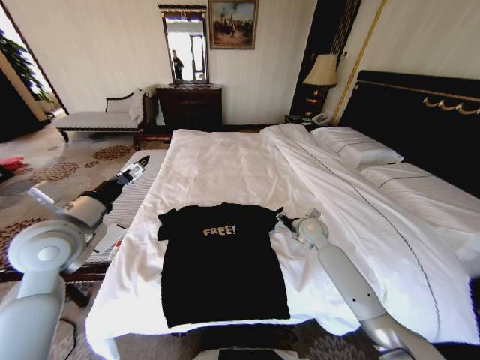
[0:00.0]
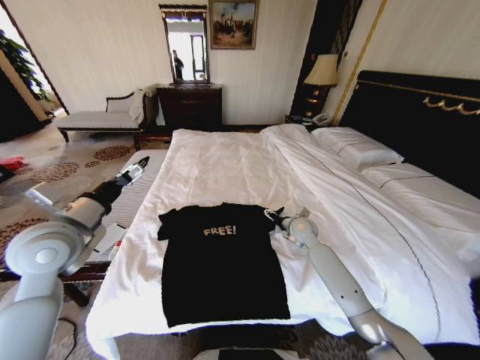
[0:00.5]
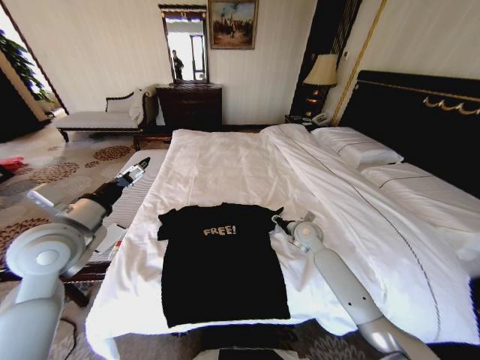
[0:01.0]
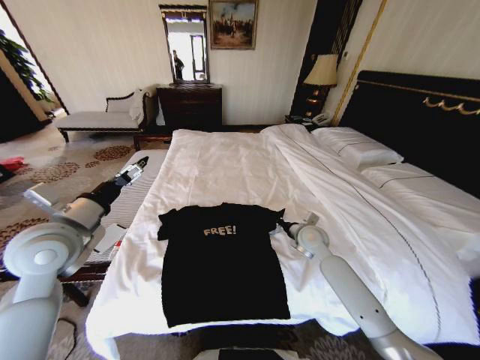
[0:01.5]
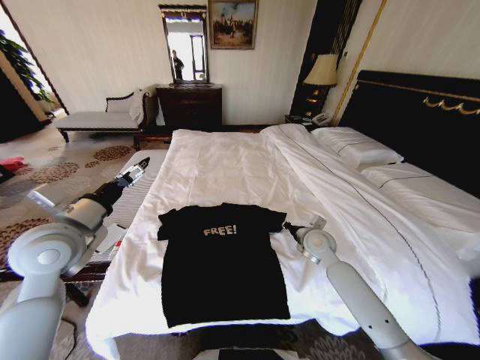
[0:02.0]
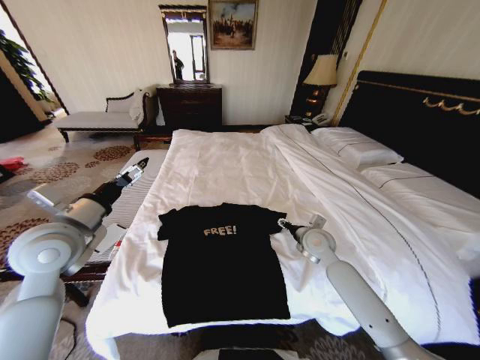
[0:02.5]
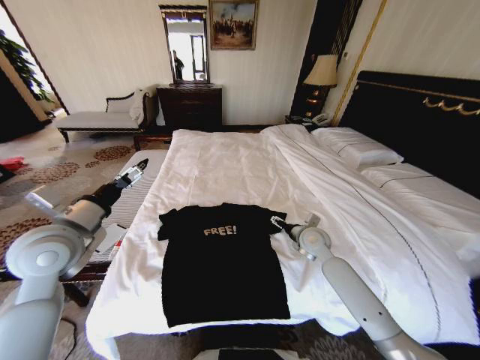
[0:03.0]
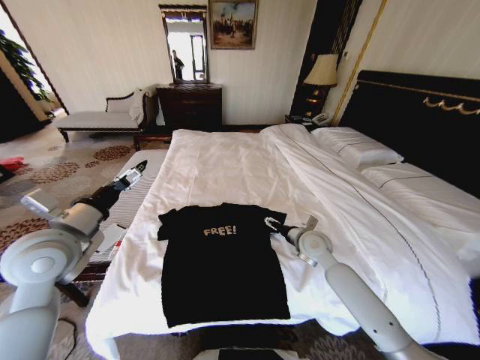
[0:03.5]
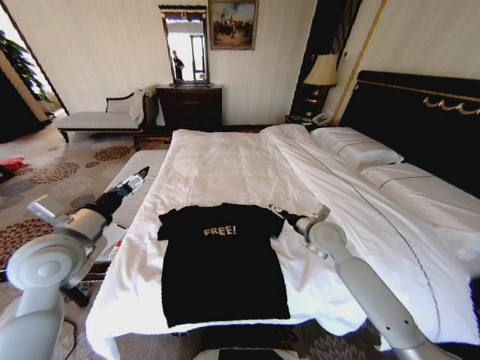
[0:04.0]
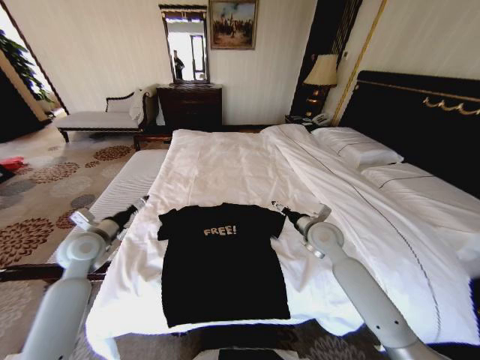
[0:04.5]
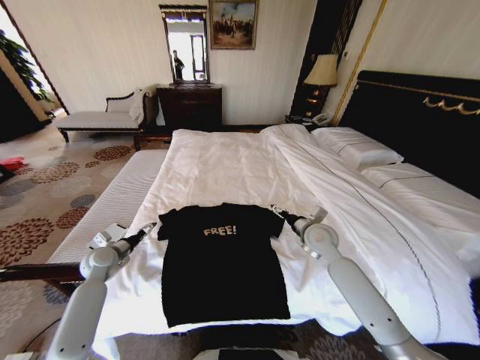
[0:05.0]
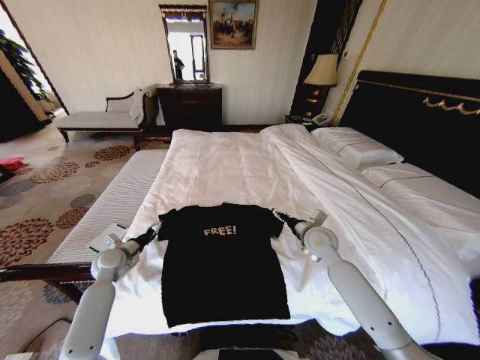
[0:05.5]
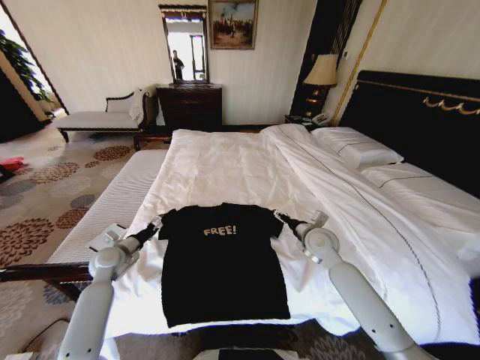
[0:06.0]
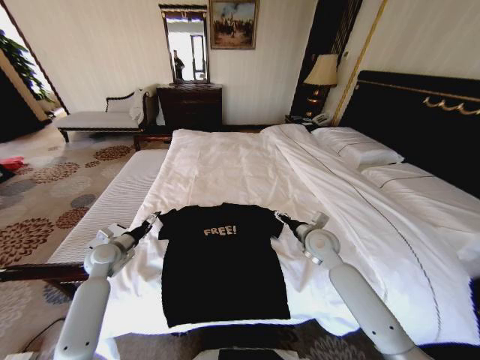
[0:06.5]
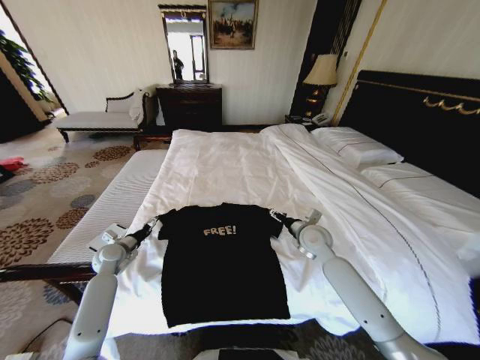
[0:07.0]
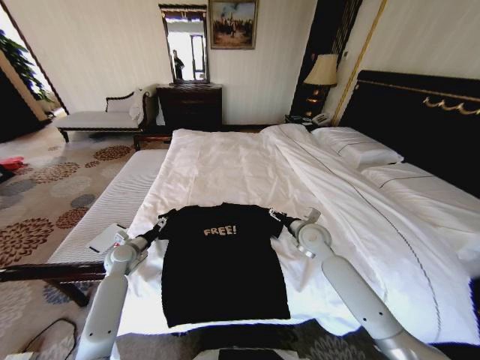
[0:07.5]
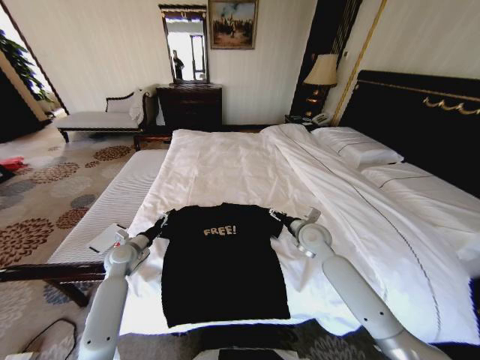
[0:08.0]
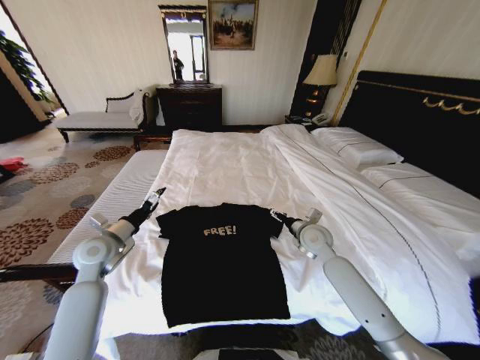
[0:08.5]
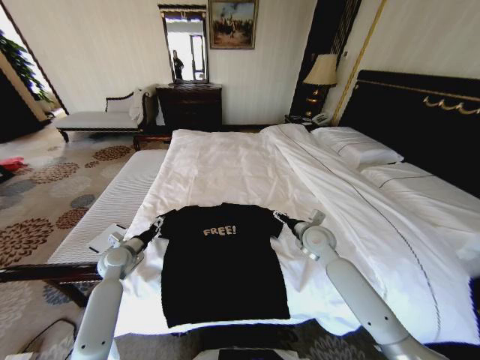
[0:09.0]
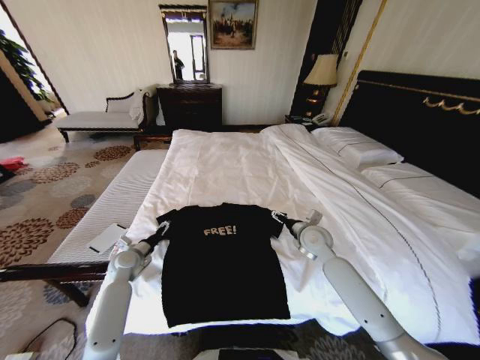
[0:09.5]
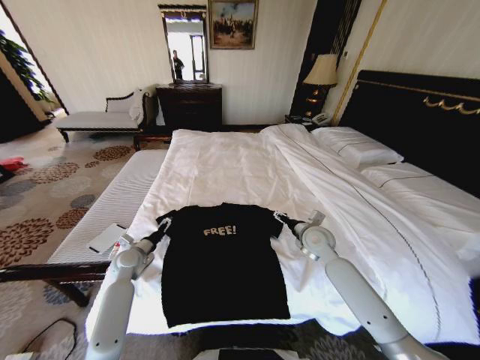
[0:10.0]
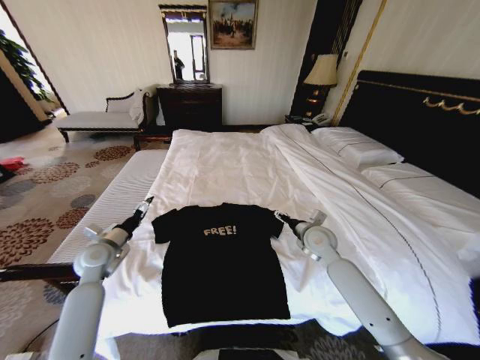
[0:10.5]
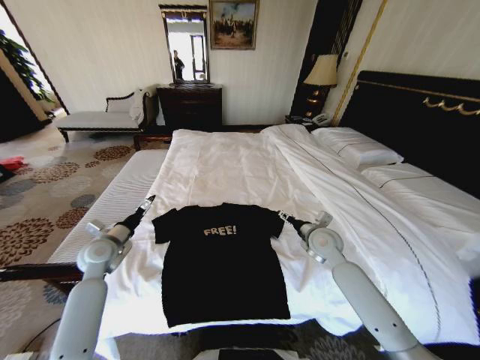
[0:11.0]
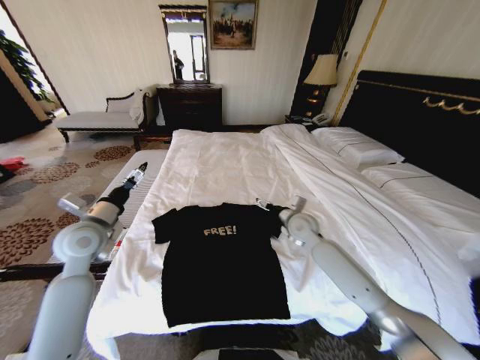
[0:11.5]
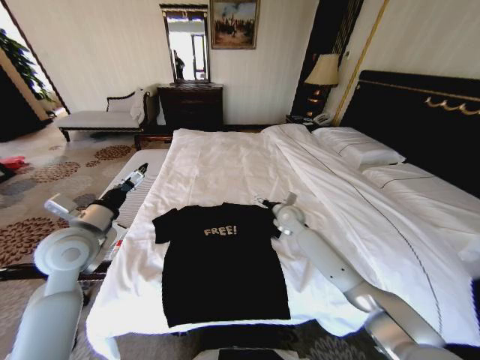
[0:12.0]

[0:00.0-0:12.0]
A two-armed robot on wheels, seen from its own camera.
Task of the whole recording: Fold the clothes on the bed.
0:00.0 to 0:02.0: The right gripper moves backward, about 5 cm, and opens and closes again.
0:02.0 to 0:04.0: The right gripper goes about 5 cm upward, and opens.
0:04.0 to 0:06.0: The left gripper is displaced downward and forward by approximately 25 cm.
0:06.0 to 0:08.0: The grippers make only small movements.
0:08.0 to 0:10.0: The left gripper goes upward and returns, roughly 10 cm each way.
0:10.0 to 0:12.0: The left gripper shifts approximately 25 cm upward. Meanwhile the right gripper is displaced forward and to the left by about 10 cm.

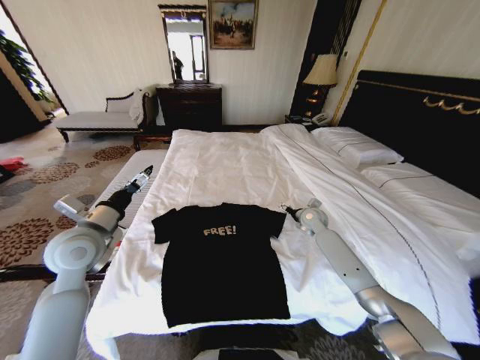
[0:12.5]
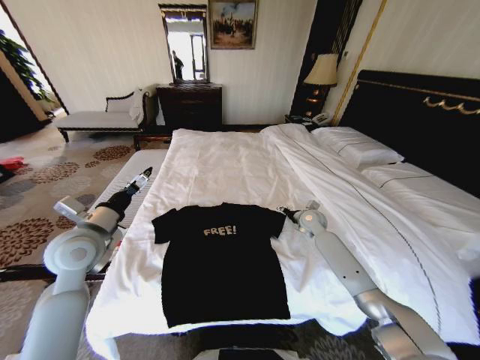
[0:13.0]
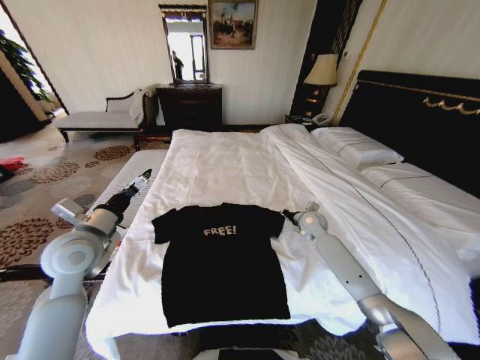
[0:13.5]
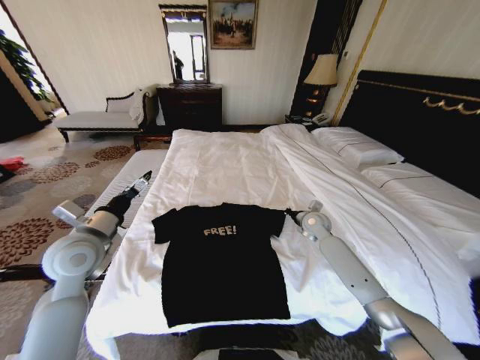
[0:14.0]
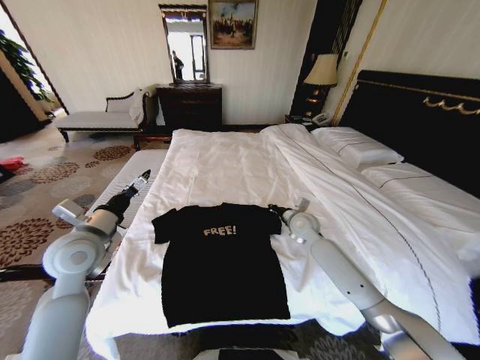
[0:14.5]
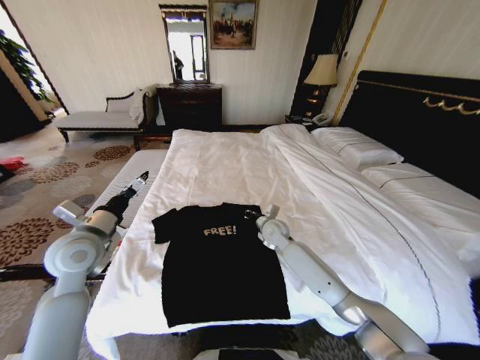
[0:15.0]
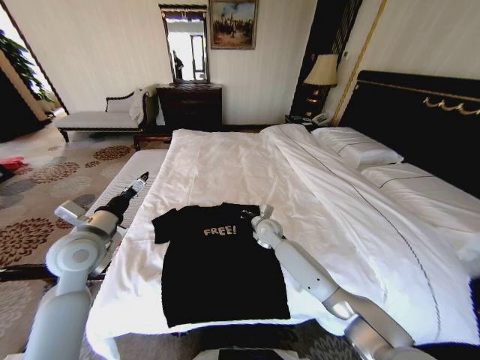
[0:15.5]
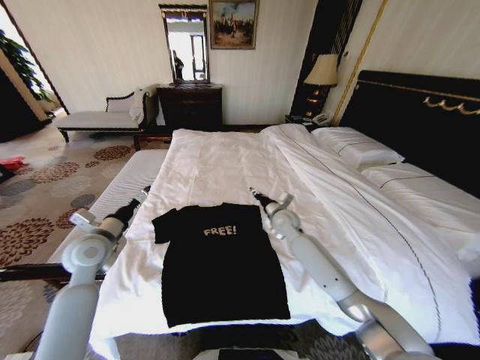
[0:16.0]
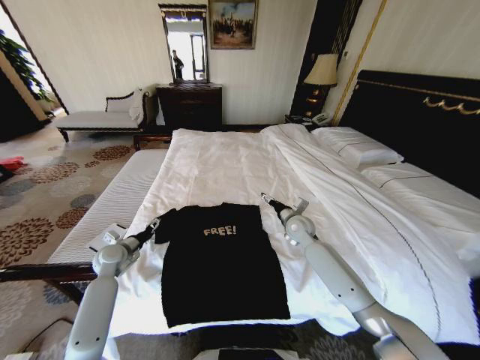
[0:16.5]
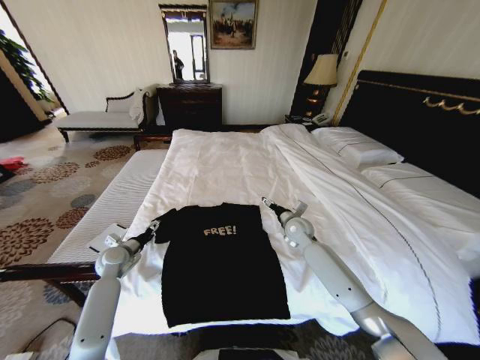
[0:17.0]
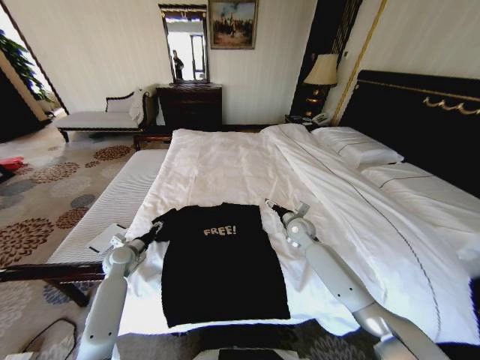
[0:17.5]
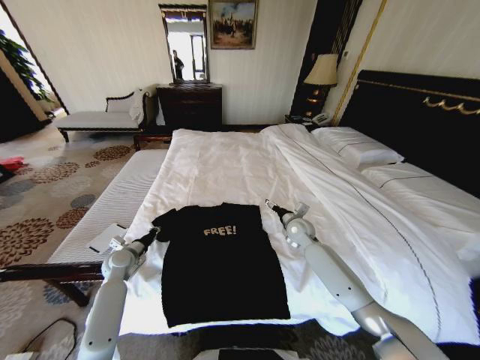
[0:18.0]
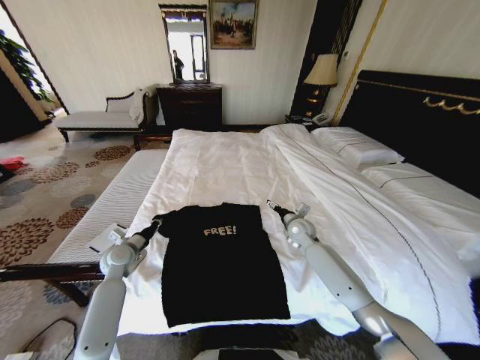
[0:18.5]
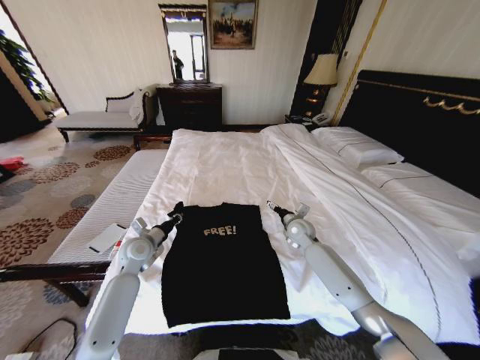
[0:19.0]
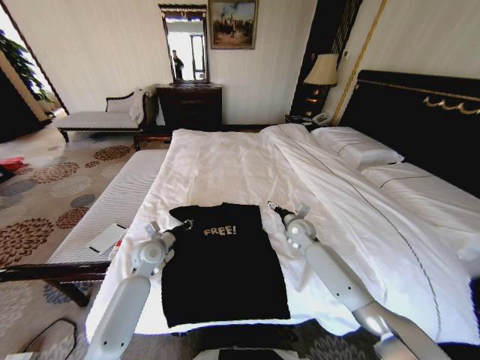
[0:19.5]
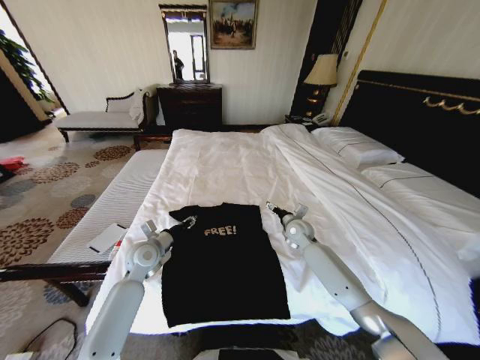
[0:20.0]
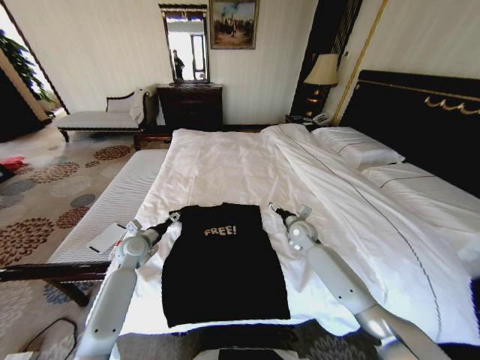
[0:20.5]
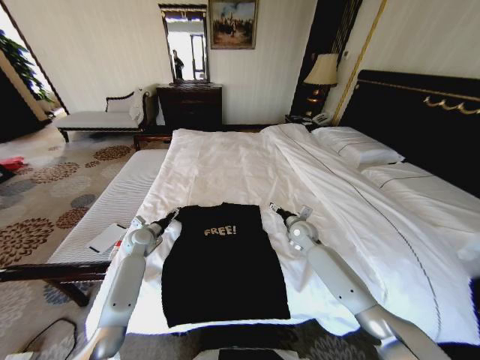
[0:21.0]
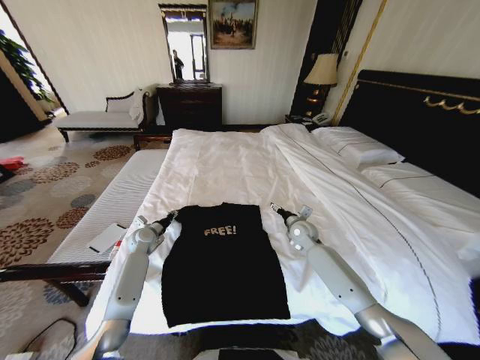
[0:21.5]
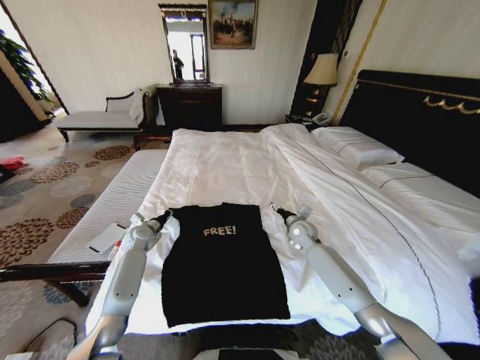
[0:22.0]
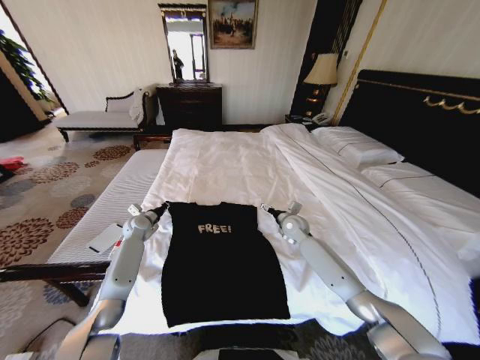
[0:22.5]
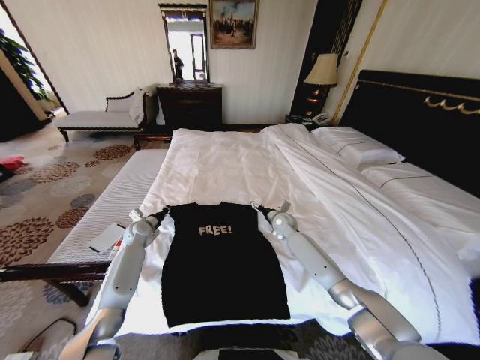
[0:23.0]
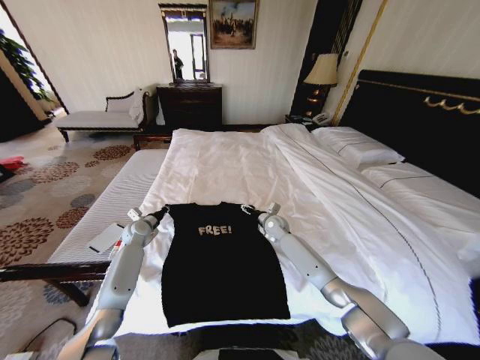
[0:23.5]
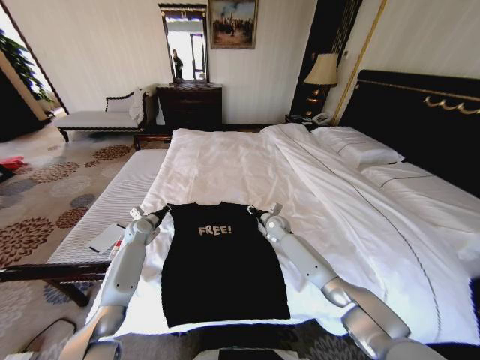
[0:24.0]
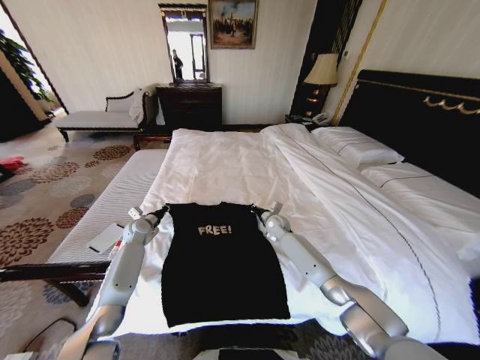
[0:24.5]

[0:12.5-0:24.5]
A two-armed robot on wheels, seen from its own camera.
Task of the whole recording: Fold the clothes on the bed.
0:12.5 to 0:14.5: The right gripper shifts approximately 5 cm to the left, and closes its fingers.
0:14.5 to 0:16.5: The right gripper moves approximately 10 cm to the left and comes back, and opens its fingers; the left gripper moves downward and forward, approximately 20 cm.
0:16.5 to 0:18.5: The left gripper closes its fingers.
0:18.5 to 0:20.5: The left gripper reaches roughly 10 cm to the right, then returns, and opens.
0:20.5 to 0:22.5: The left gripper heads forward, covering roughly 10 cm, and closes its fingers.
0:22.5 to 0:24.5: The right gripper shifts by approximately 5 cm, and closes.

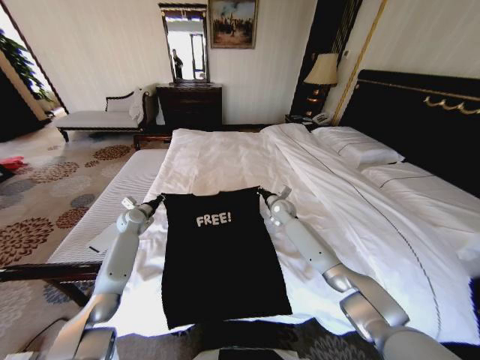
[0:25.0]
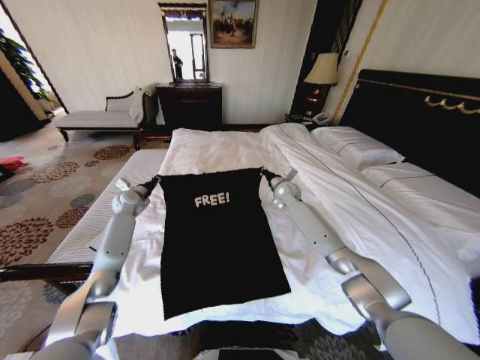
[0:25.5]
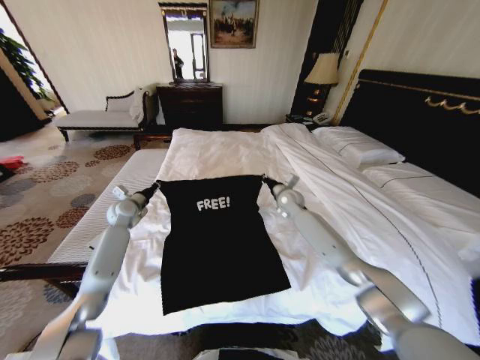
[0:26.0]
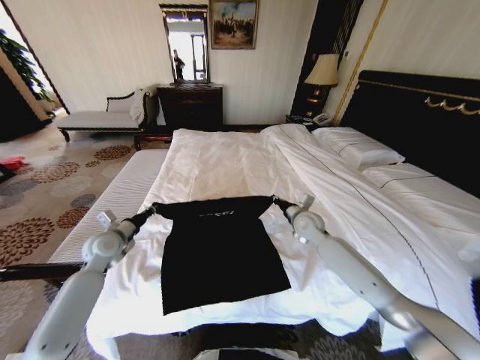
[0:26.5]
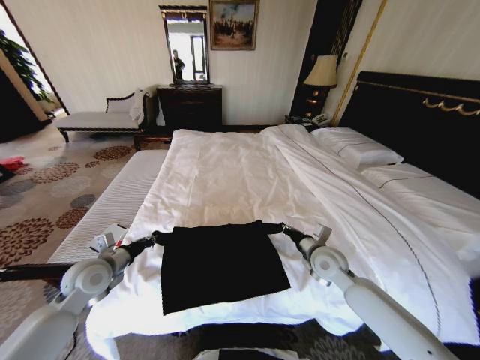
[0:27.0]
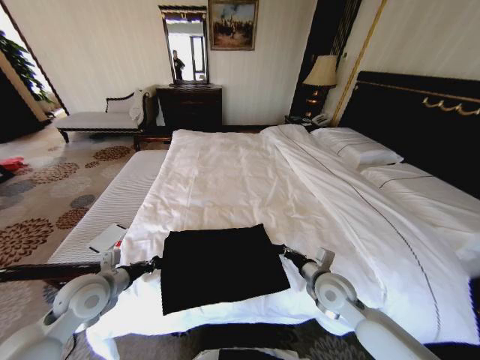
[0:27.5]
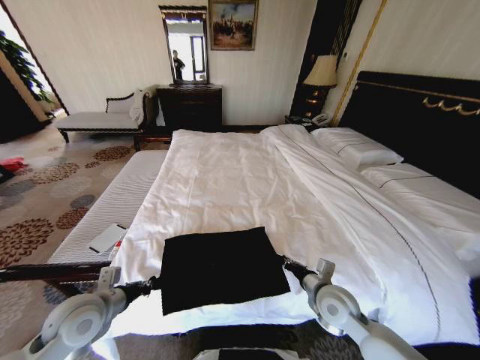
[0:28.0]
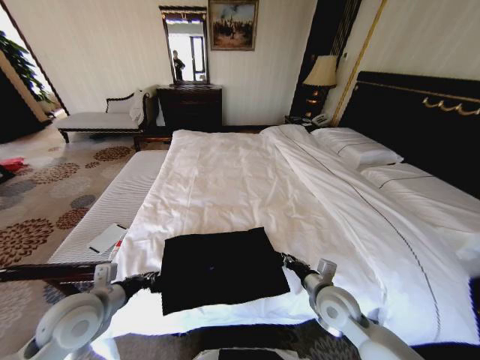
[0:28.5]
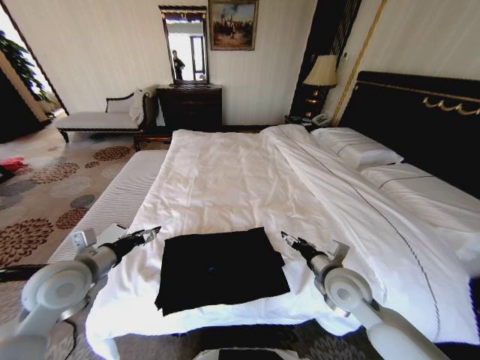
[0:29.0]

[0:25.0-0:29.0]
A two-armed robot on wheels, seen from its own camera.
Task of the whole recording: Fold the clothes on the bed.
0:25.0 to 0:27.0: Both grippers travel together backward, approximately 25 cm.
0:27.0 to 0:29.0: The left gripper travels upward by roughly 5 cm, and opens its fingers, while the right gripper is displaced backward by about 10 cm, and opens.
